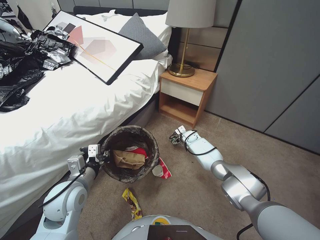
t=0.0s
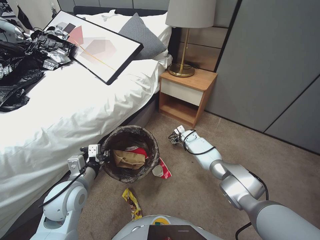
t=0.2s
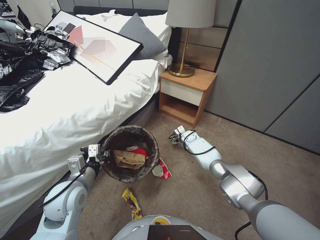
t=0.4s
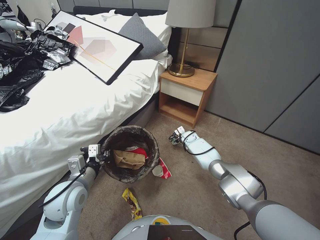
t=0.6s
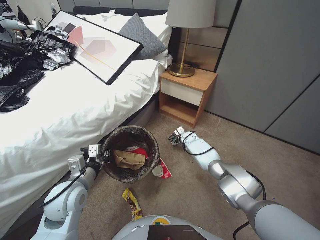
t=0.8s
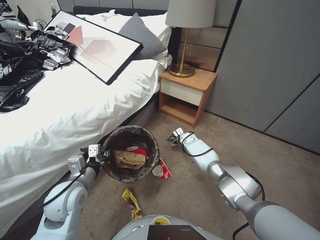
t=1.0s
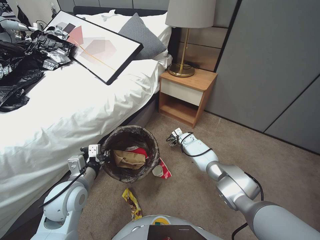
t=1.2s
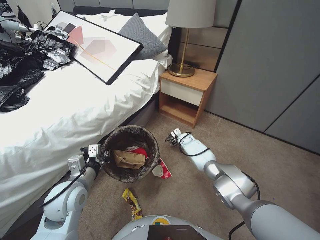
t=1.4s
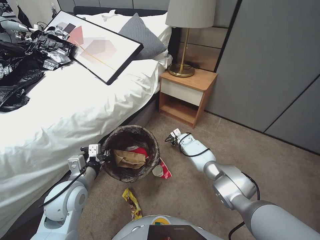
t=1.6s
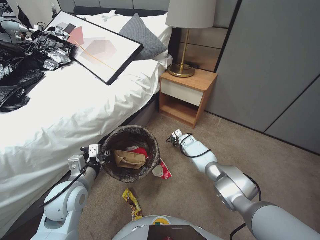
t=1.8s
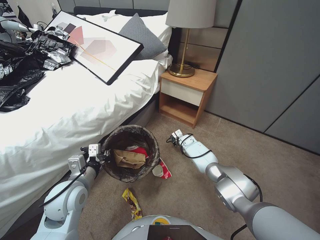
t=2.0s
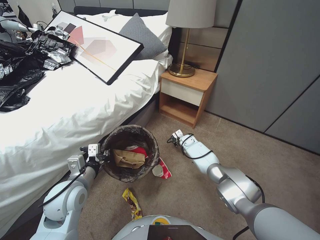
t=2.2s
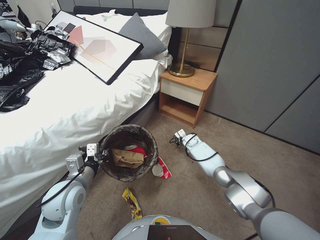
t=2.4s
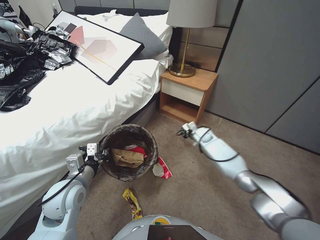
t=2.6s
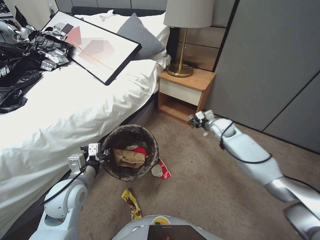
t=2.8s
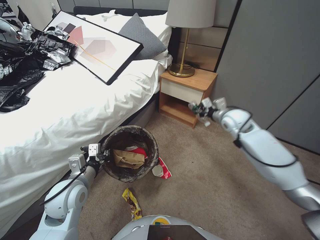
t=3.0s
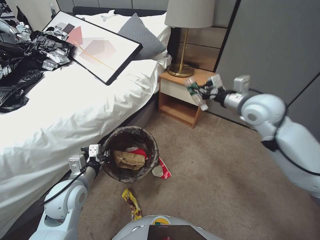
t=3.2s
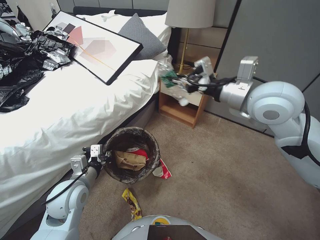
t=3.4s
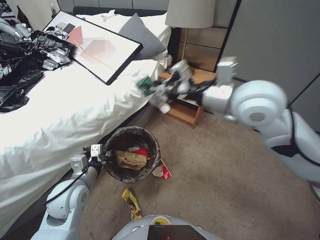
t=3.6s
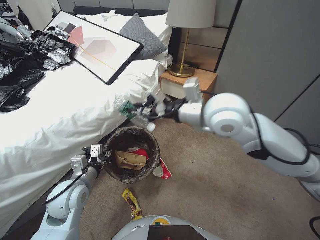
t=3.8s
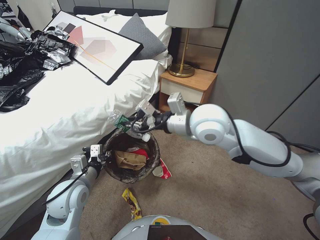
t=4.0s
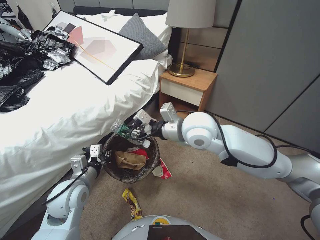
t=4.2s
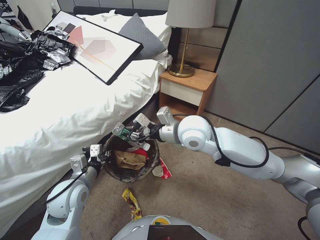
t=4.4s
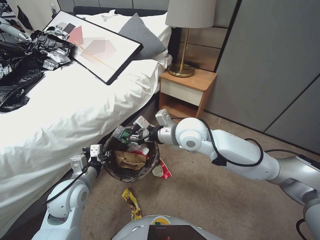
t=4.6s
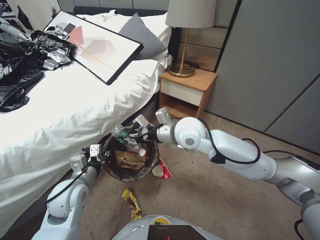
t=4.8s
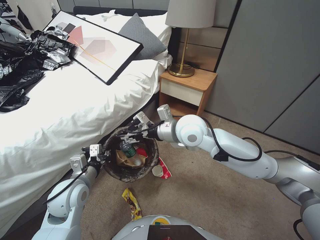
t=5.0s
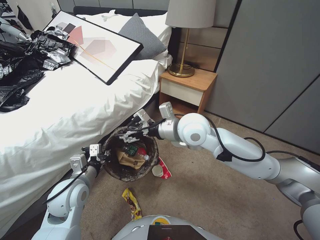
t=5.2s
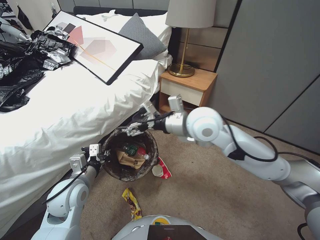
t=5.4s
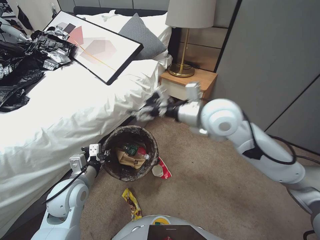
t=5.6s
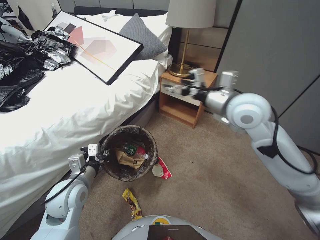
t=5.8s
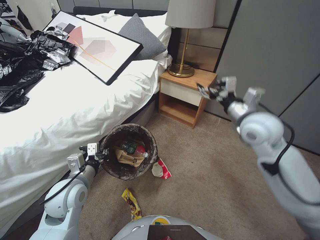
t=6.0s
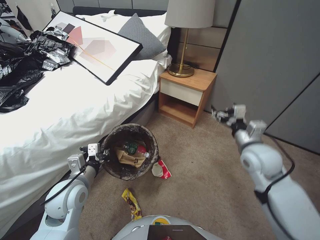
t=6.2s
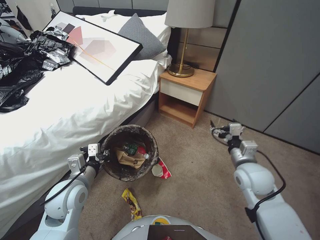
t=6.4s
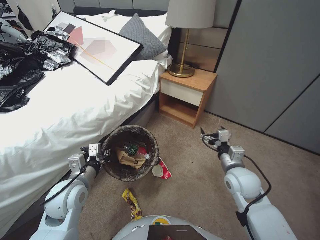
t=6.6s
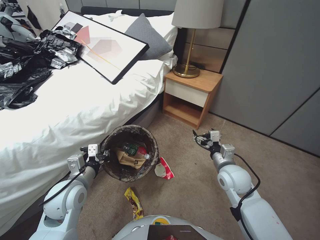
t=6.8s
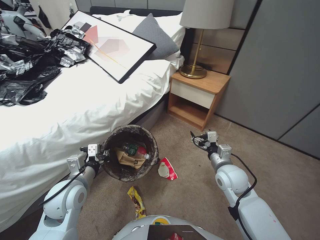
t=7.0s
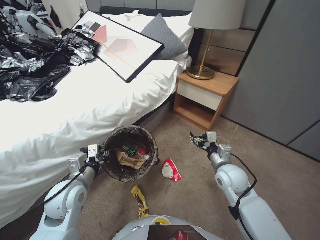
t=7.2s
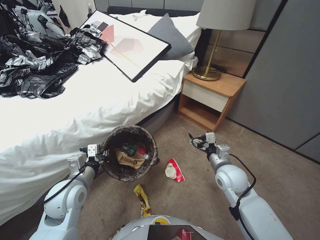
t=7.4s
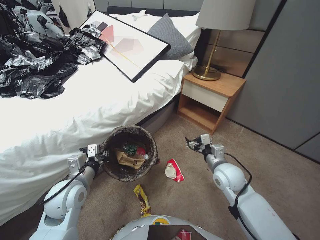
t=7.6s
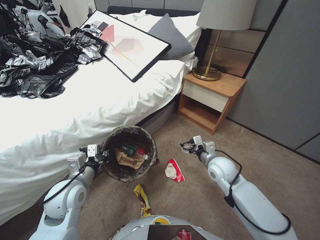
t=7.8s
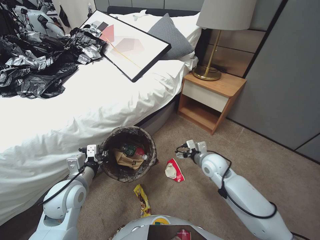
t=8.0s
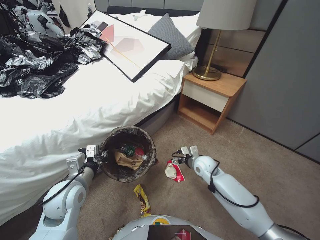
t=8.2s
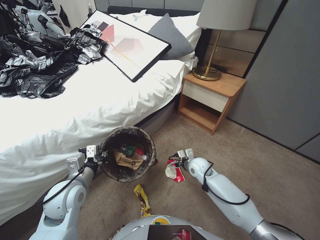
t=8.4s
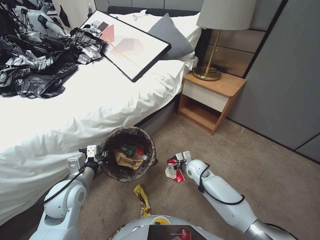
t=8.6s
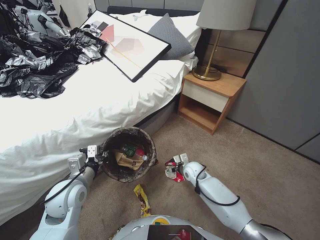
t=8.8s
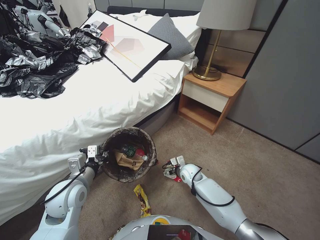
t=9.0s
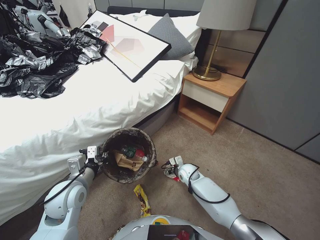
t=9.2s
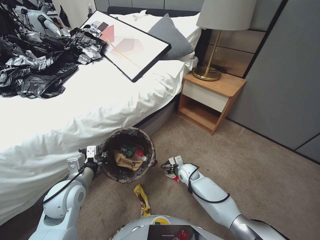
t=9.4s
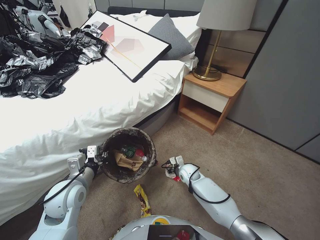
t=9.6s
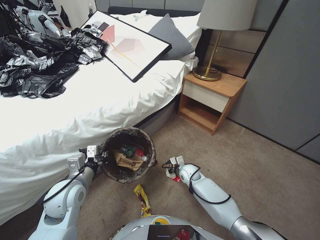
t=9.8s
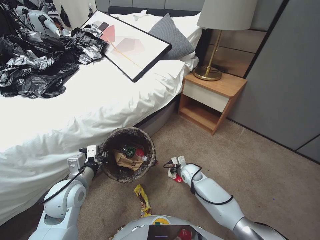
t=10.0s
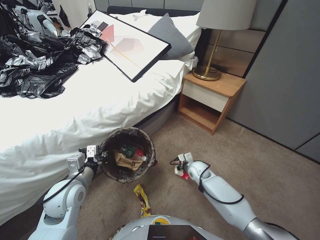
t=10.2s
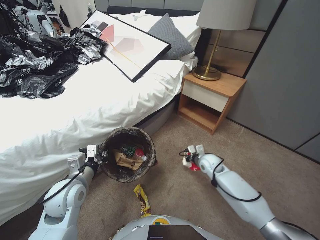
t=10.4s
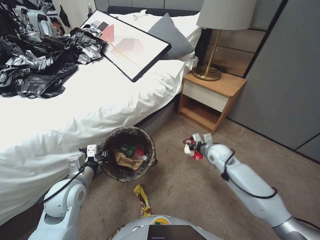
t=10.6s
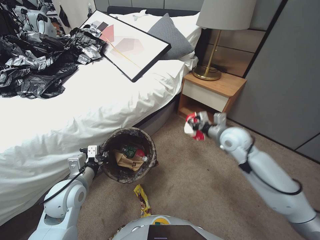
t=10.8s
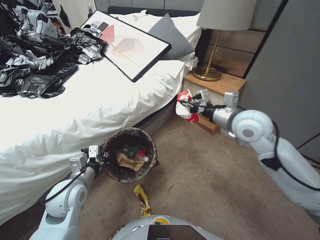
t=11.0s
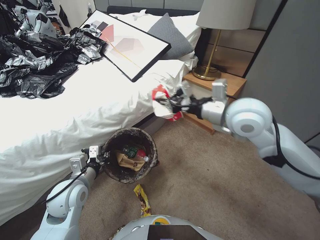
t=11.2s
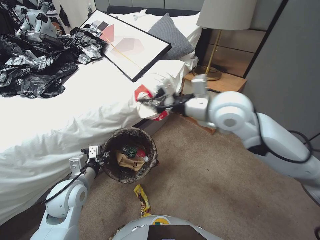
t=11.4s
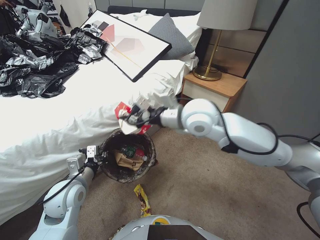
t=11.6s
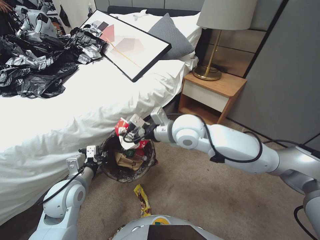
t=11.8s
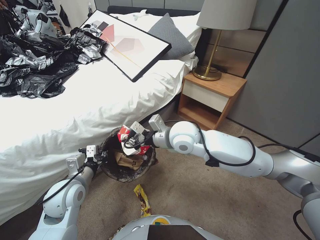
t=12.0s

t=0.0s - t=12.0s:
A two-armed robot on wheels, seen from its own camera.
Task of the whole recording: Pick up the trash bin, then pick up the garbage from the floor and place it into the trash bin.
t=0.0s - t=1.6s: The right gripper closes.
t=1.6s - t=3.0s: The right gripper shifts roughly 30 cm upward and to the right, and closes.
t=3.0s - t=4.4s: The right gripper travels to the left, backward and upward by approximately 25 cm.
t=4.4s - t=6.0s: The right gripper shifts about 15 cm to the right, and opens up.
t=6.0s - t=7.6s: The right gripper is displaced downward by about 25 cm.
t=7.6s - t=9.0s: The right gripper shifts approximately 20 cm downward, to the left and forward.
t=9.0s - t=10.4s: The right gripper heads to the right, covering some 5 cm, and closes its fingers.
t=10.4s - t=12.0s: The right gripper travels upward and to the left by about 35 cm.

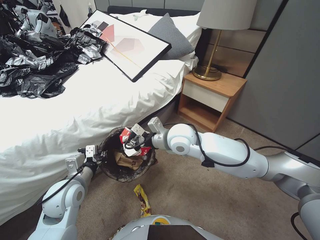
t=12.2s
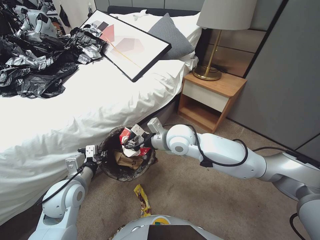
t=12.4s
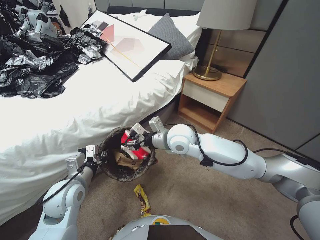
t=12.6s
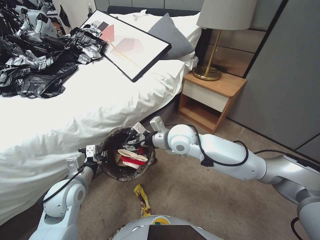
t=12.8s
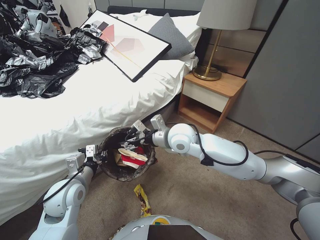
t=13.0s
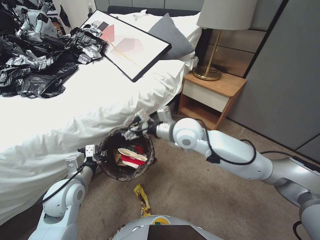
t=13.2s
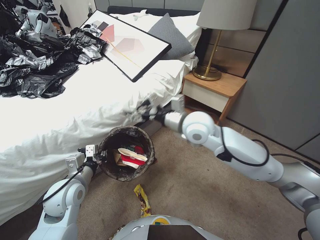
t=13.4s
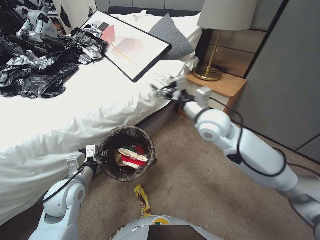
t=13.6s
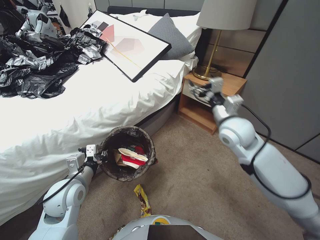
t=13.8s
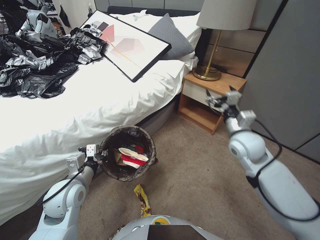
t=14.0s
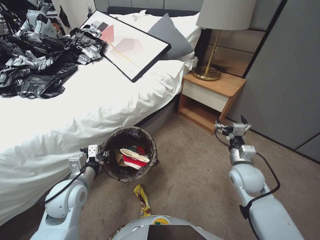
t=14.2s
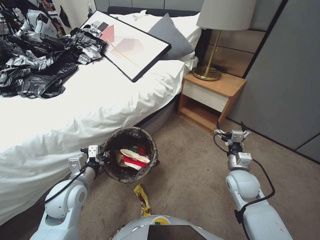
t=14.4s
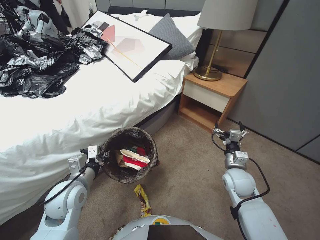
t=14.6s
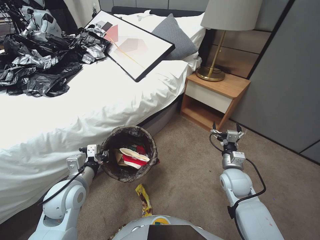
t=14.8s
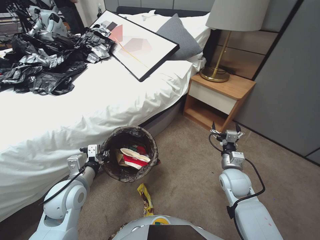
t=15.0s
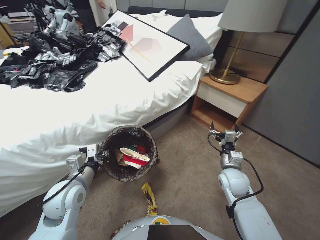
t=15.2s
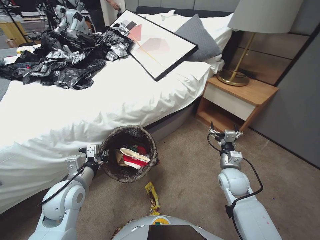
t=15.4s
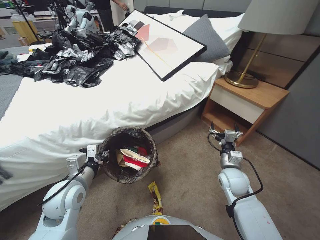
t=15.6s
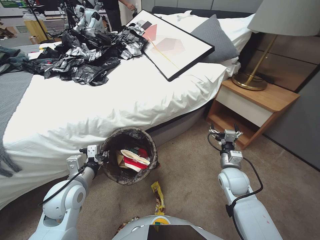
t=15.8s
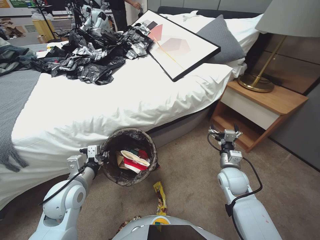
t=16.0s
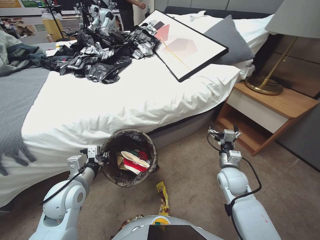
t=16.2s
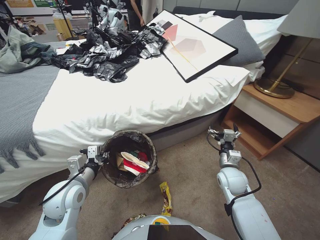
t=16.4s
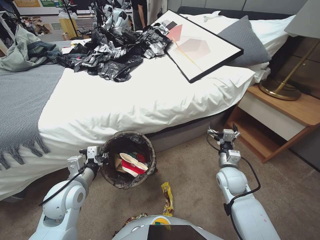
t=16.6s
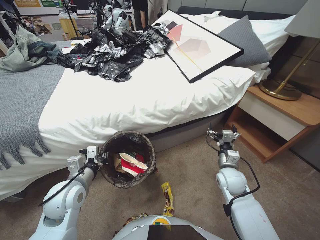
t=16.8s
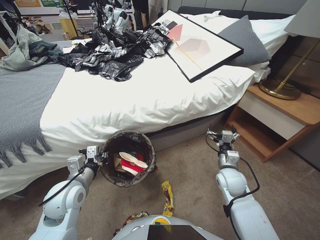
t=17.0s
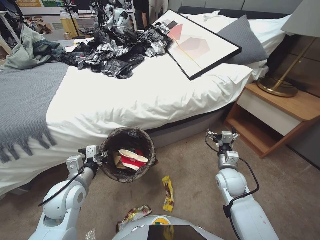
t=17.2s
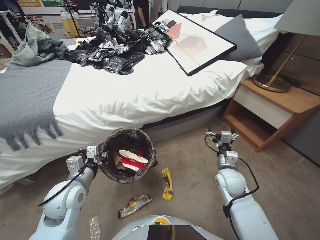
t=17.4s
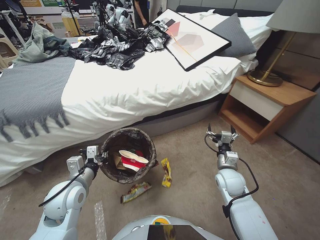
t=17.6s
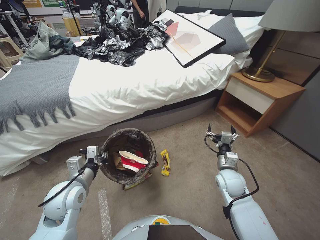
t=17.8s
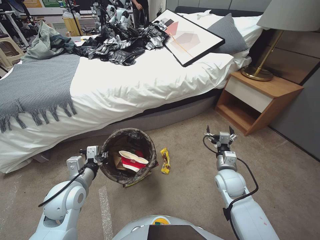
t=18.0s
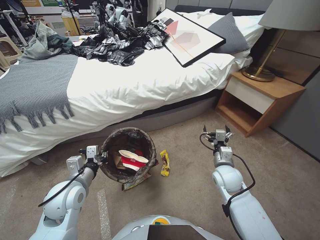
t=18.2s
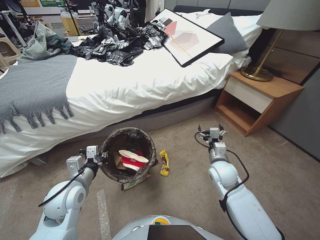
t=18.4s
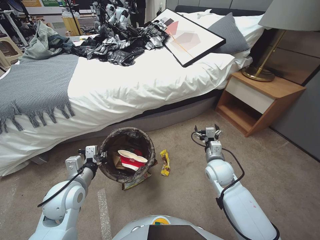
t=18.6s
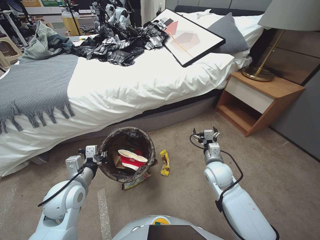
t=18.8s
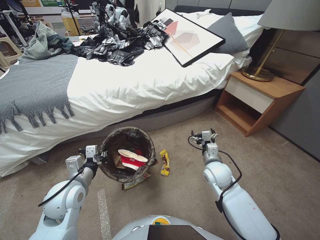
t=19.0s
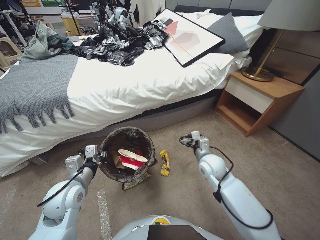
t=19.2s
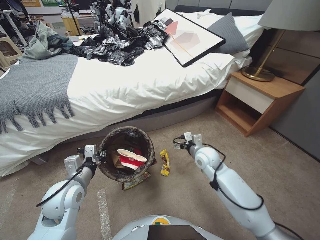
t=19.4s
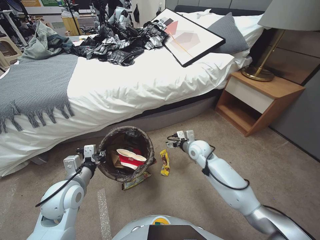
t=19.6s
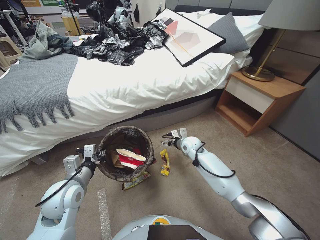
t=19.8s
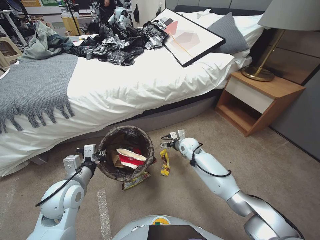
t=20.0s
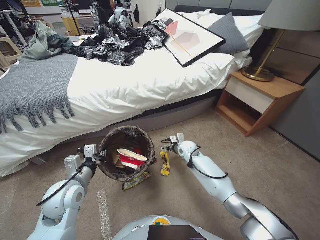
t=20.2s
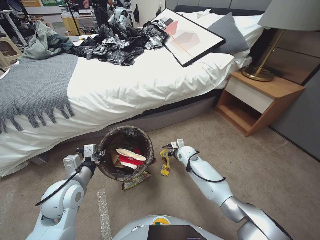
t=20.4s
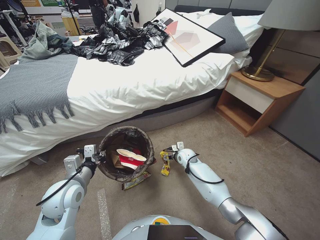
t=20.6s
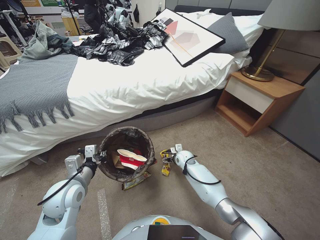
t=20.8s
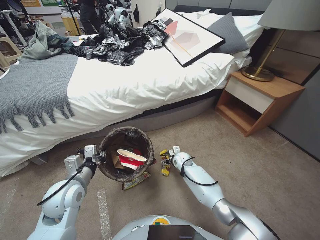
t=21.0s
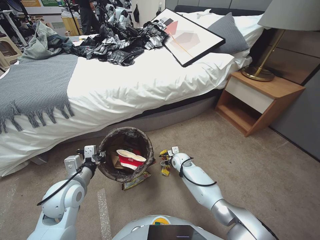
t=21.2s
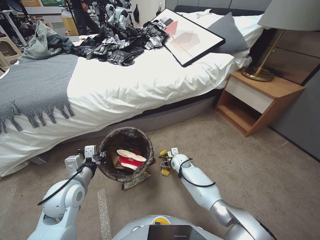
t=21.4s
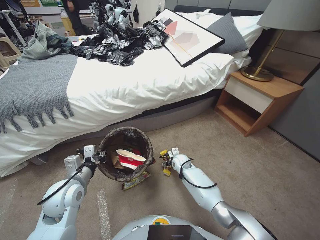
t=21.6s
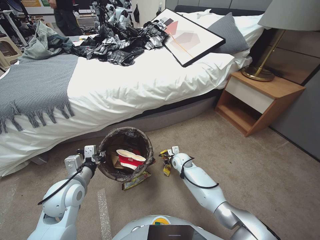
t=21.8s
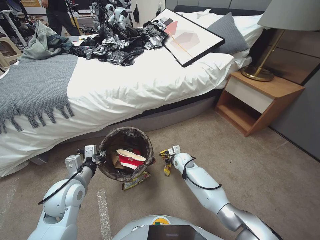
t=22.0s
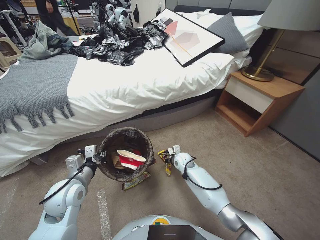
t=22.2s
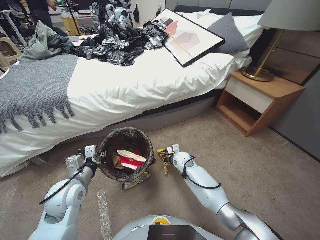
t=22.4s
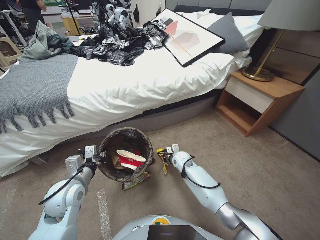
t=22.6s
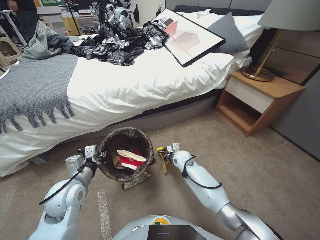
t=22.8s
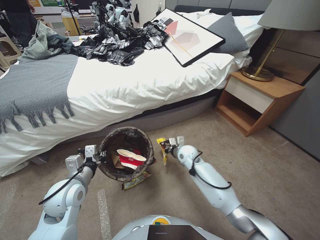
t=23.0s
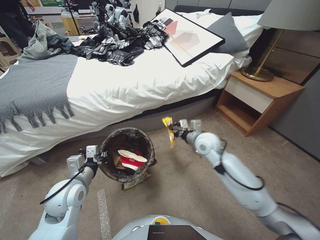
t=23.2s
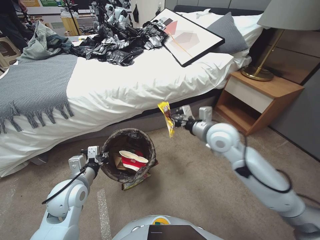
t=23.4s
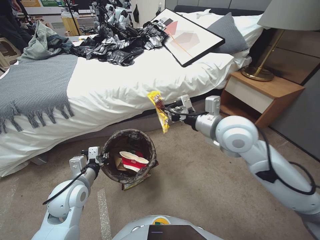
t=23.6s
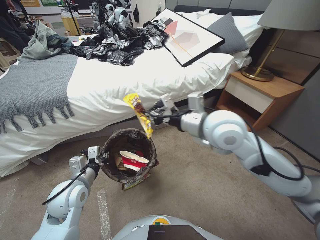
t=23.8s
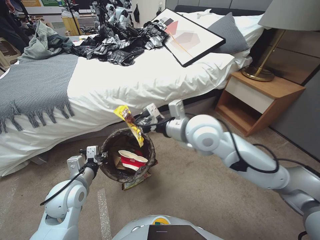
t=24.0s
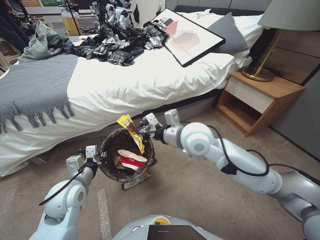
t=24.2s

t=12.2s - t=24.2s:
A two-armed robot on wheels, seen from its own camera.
Task of the whole recording: Pick up the trash bin, then pick up the garbage from the floor and place it into the trash bin.
t=12.2s - t=13.8s: The right gripper moves to the right, some 15 cm, and opens its fingers.
t=13.8s - t=15.2s: The right gripper travels downward and backward by some 25 cm.
t=18.2s - t=19.8s: The right gripper moves forward and to the left, some 20 cm.
t=19.8s - t=21.2s: The right gripper travels downward by approximately 15 cm.
t=21.2s - t=22.6s: The right gripper closes.
t=22.6s - t=24.2s: The right gripper goes roughly 35 cm upward.
